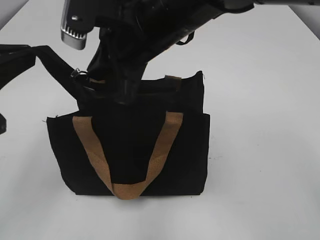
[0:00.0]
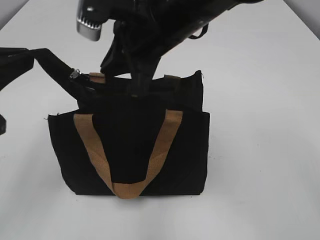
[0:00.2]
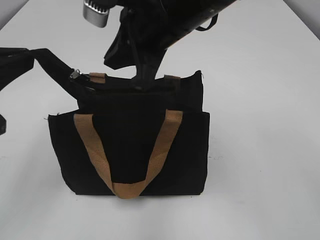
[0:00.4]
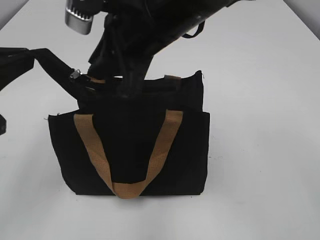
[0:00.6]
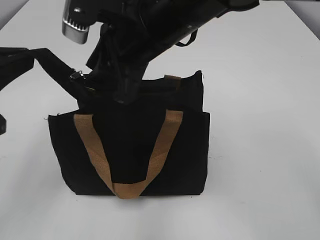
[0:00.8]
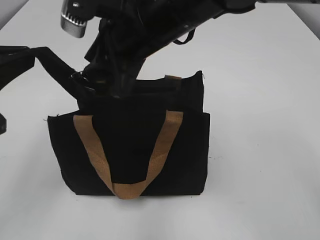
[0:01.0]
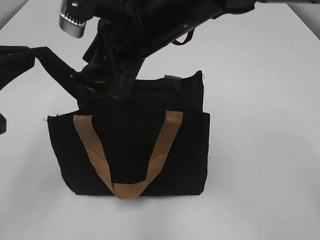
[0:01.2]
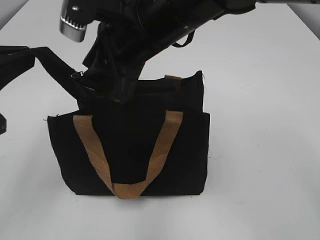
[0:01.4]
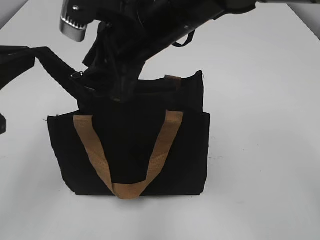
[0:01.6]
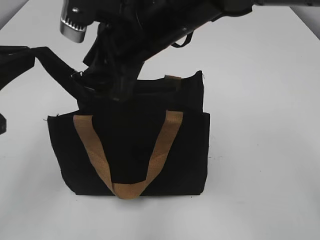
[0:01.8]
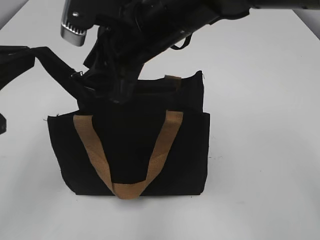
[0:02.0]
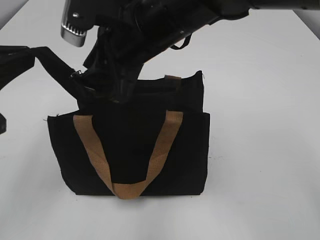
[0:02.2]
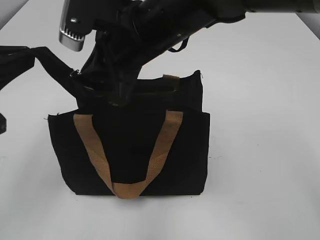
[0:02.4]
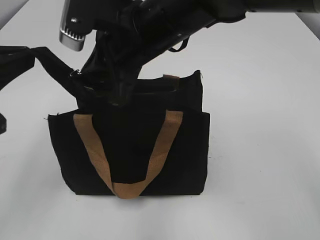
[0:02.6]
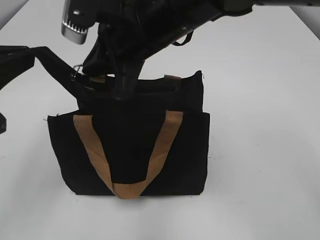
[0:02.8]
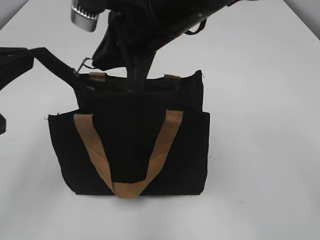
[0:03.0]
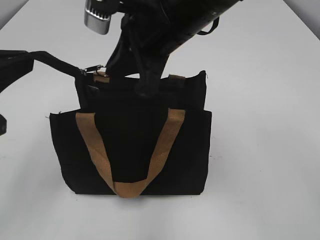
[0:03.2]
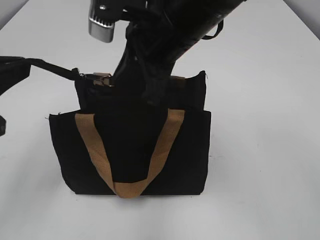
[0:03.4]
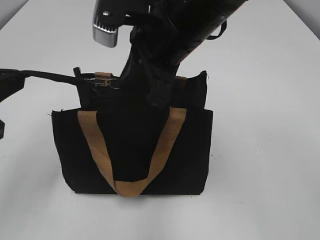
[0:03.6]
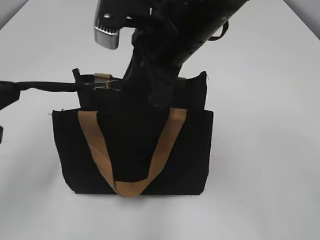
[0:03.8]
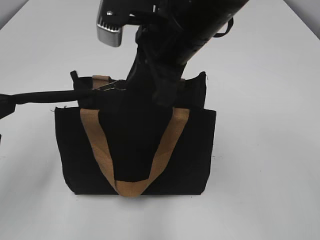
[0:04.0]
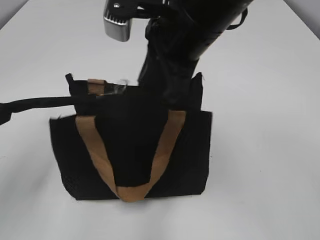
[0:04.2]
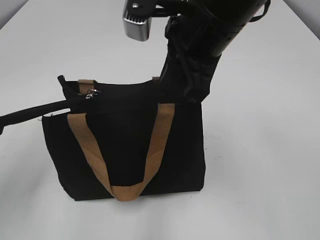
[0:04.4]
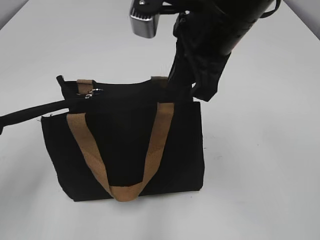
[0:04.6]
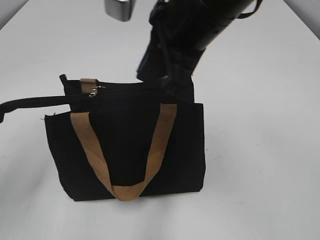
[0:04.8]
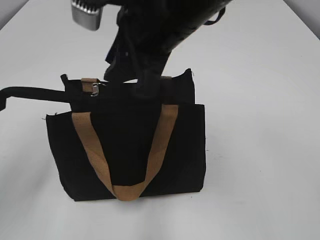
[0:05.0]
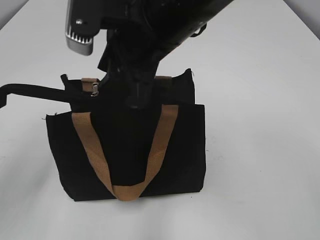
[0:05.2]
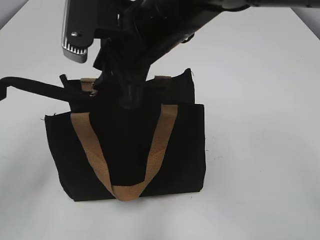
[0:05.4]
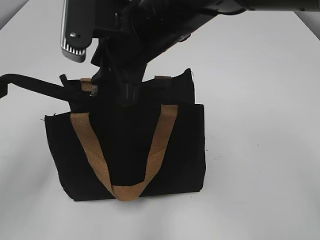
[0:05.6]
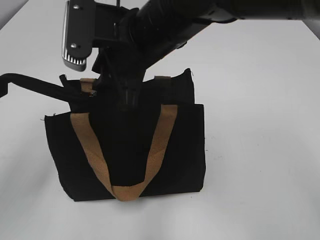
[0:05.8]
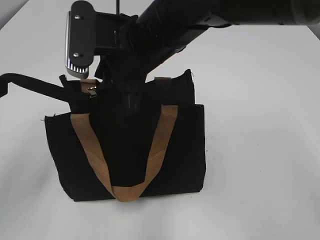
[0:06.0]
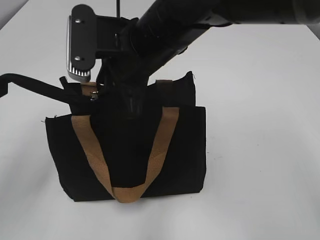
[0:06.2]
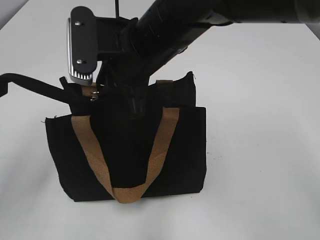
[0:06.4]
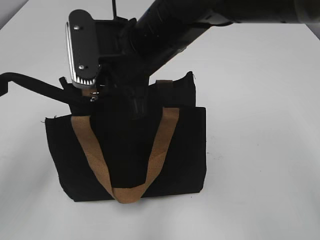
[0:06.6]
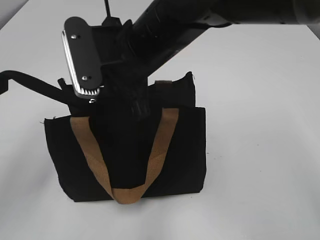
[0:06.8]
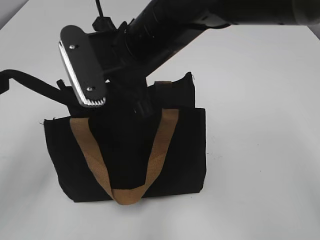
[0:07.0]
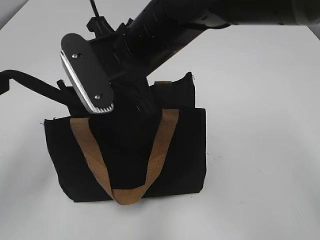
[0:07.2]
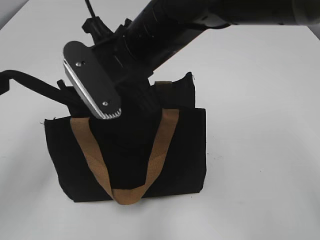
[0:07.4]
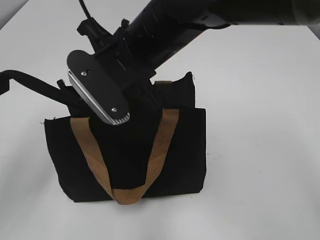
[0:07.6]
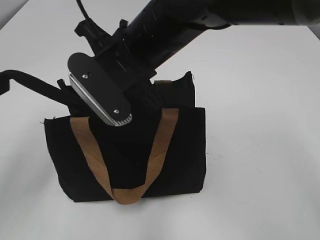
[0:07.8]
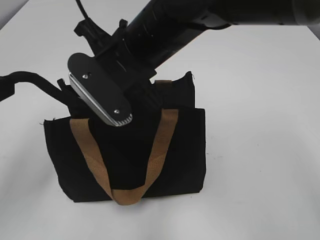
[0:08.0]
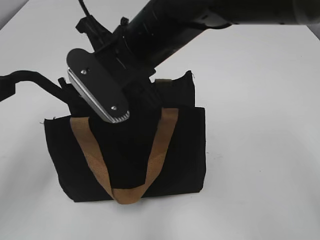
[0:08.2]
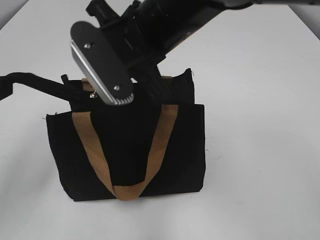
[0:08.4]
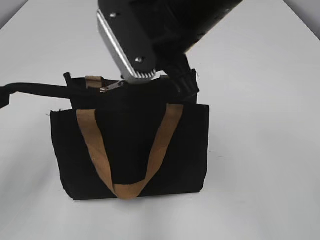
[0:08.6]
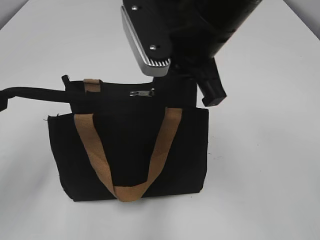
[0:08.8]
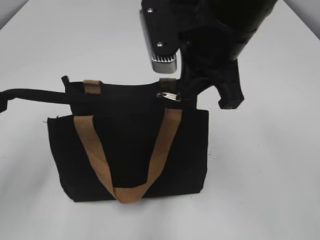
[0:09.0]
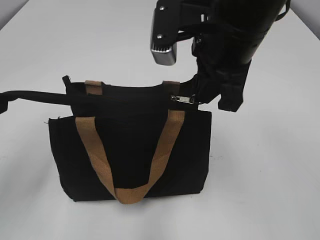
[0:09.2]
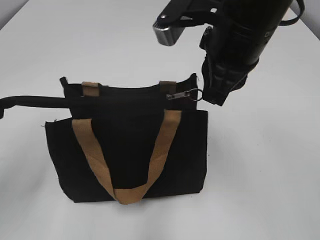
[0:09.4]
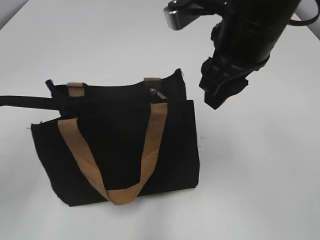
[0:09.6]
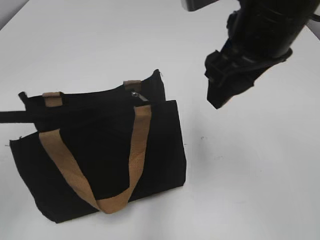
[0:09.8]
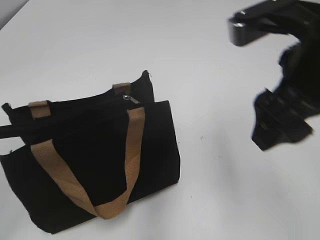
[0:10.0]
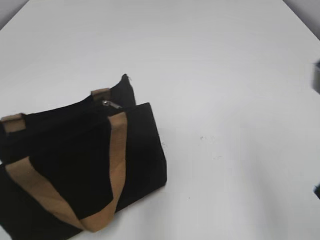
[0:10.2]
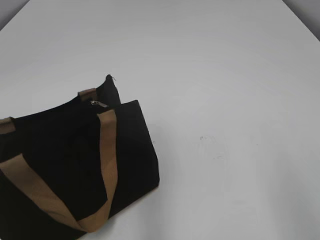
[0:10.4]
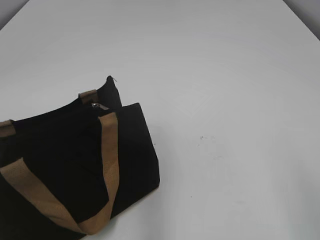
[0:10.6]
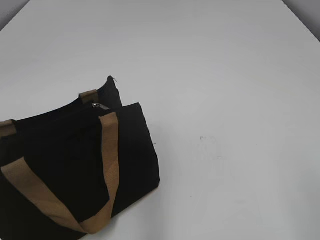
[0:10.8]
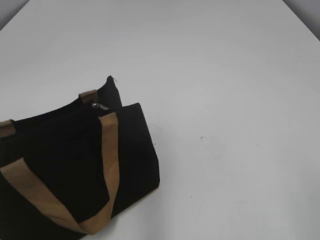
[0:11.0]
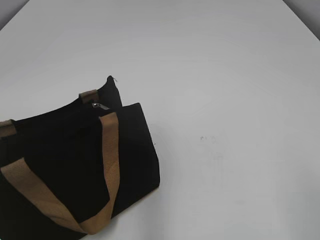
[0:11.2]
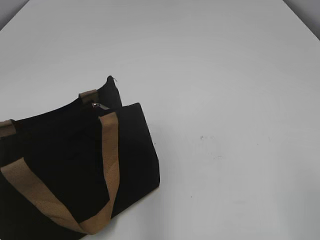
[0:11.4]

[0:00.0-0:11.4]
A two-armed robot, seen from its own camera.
Step, 0:00.0 to 0:09.4: Zip up the bag with your right hand.
Step, 0:09.6 to 0:10.6: Grab the zipper with your left hand.
0:00.0 to 0:01.4: The right gripper opens up.
0:01.4 to 0:02.8: The right gripper closes its fingers.
0:02.8 to 0:04.2: The right gripper changes place by roughly 5 cm.
0:04.2 to 0:05.6: The right gripper heads to the left, covering some 5 cm, and opens its fingers.
0:07.2 to 0:08.6: The right gripper moves approximately 5 cm, and closes its fingers.
0:08.6 to 0:10.0: The left gripper is displaced upward by roughly 5 cm, and opens; the right gripper is displaced to the right and backward by approximately 15 cm, and opens up.
0:10.0 to 0:11.4: The left gripper moves backward and to the left, roughly 15 cm. The right gripper travels backward and to the right by about 25 cm.

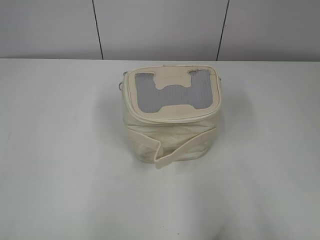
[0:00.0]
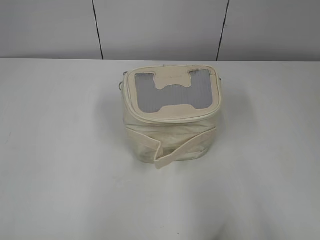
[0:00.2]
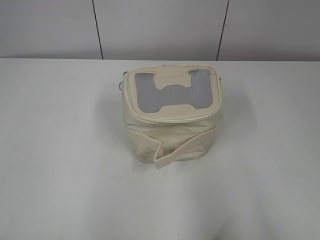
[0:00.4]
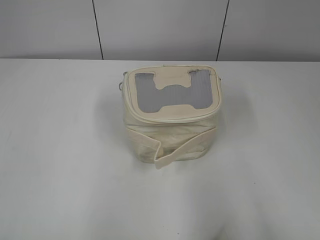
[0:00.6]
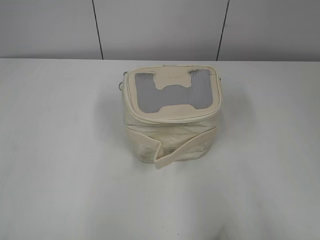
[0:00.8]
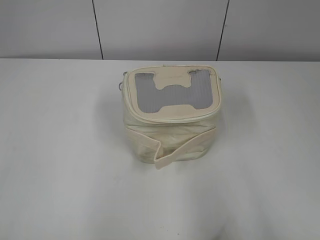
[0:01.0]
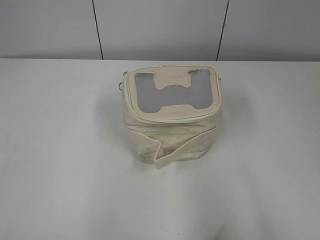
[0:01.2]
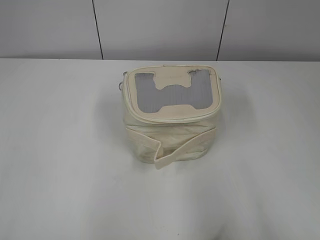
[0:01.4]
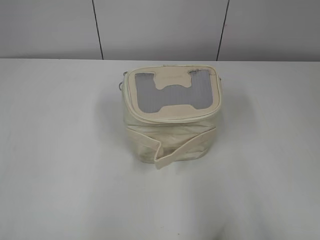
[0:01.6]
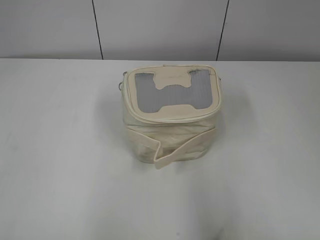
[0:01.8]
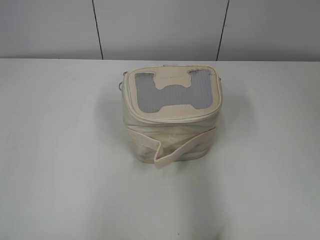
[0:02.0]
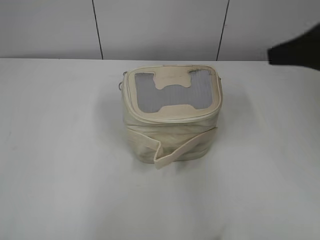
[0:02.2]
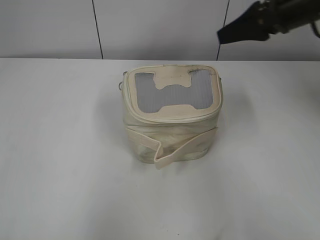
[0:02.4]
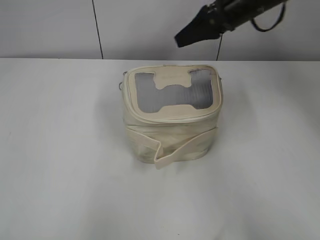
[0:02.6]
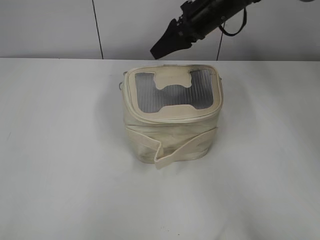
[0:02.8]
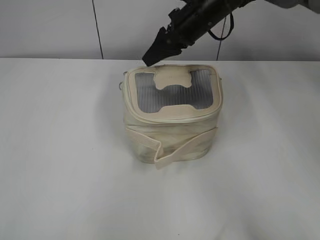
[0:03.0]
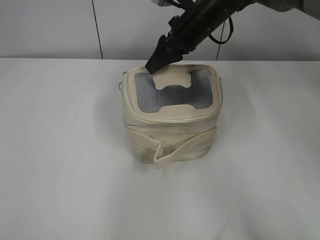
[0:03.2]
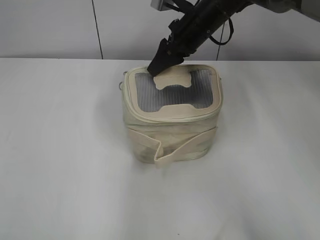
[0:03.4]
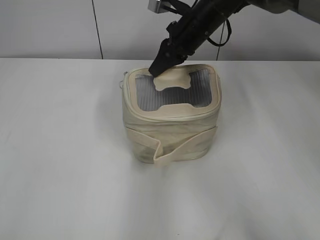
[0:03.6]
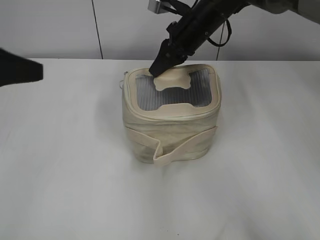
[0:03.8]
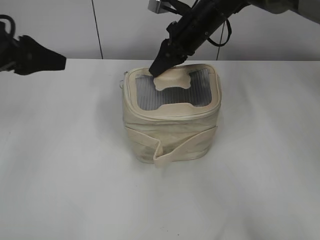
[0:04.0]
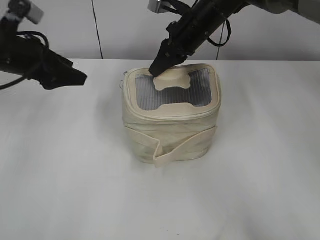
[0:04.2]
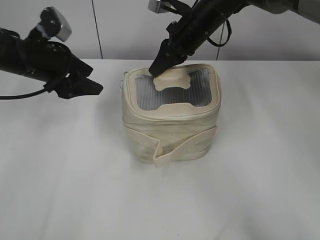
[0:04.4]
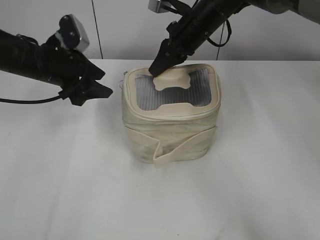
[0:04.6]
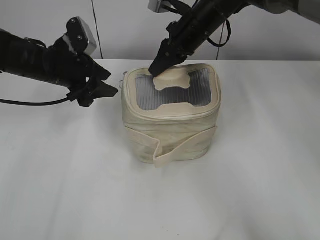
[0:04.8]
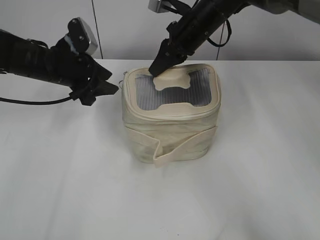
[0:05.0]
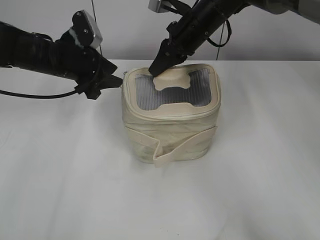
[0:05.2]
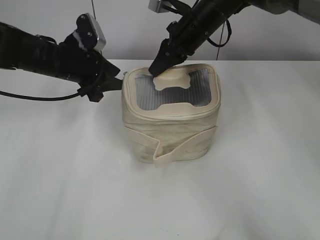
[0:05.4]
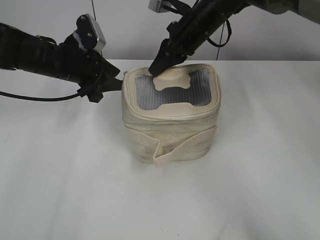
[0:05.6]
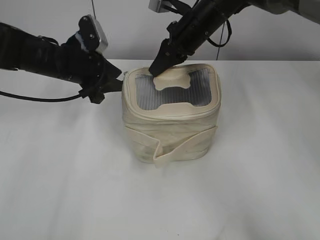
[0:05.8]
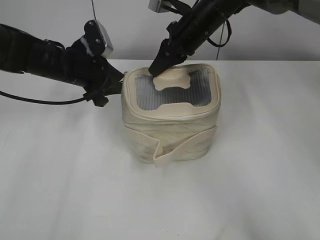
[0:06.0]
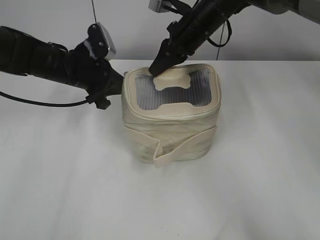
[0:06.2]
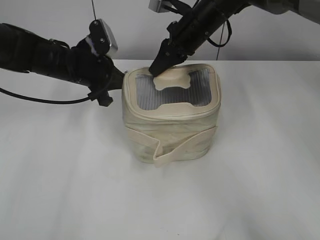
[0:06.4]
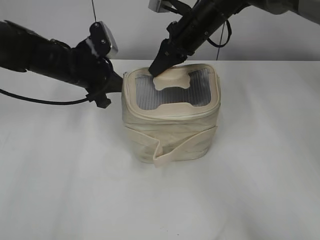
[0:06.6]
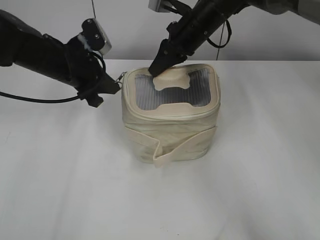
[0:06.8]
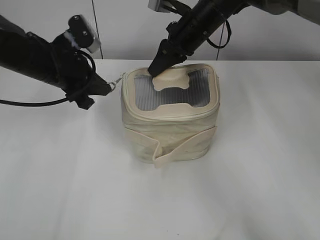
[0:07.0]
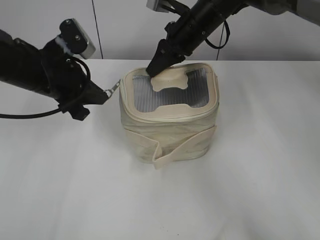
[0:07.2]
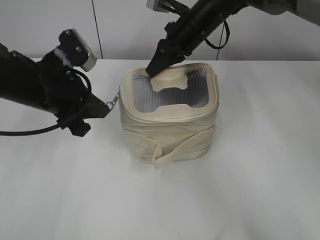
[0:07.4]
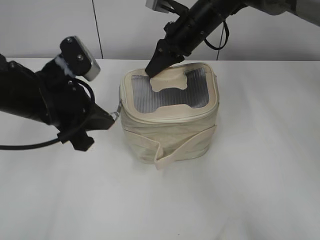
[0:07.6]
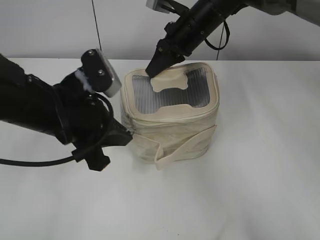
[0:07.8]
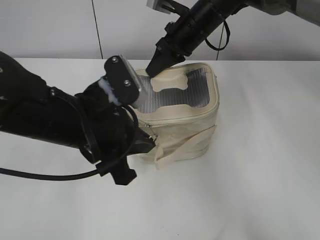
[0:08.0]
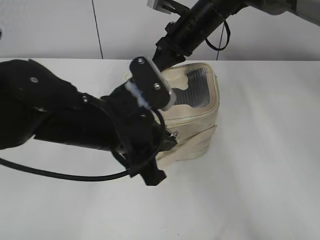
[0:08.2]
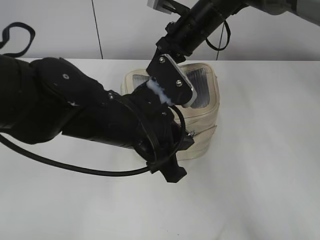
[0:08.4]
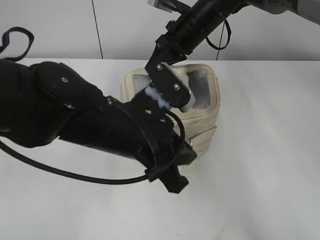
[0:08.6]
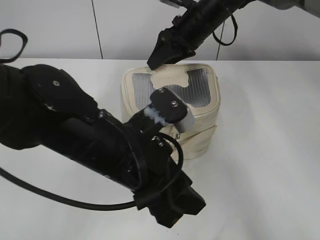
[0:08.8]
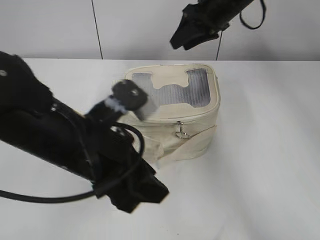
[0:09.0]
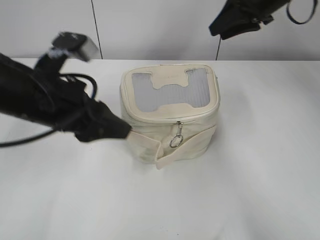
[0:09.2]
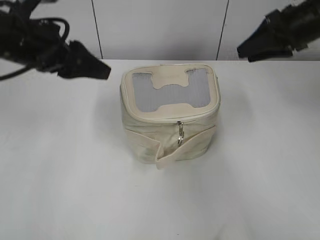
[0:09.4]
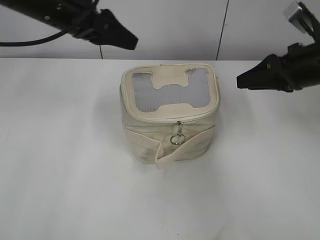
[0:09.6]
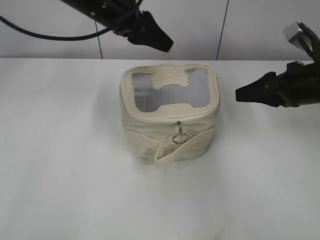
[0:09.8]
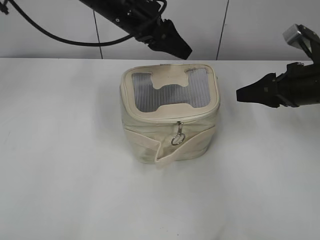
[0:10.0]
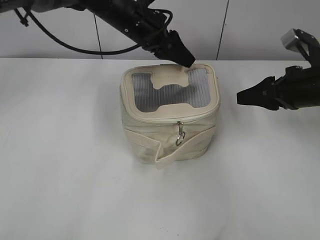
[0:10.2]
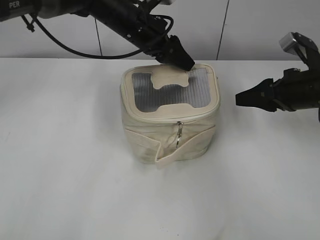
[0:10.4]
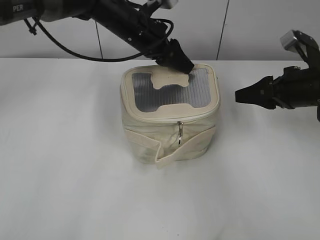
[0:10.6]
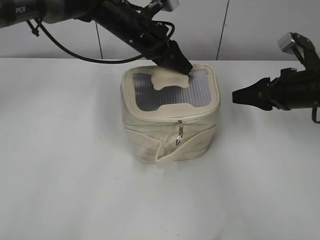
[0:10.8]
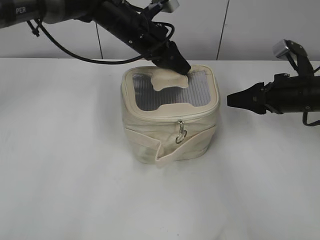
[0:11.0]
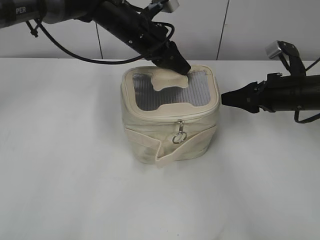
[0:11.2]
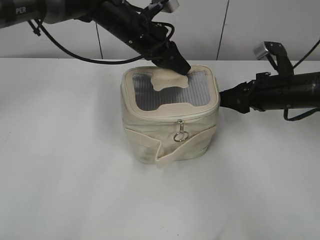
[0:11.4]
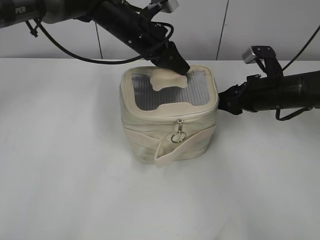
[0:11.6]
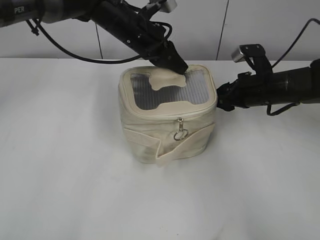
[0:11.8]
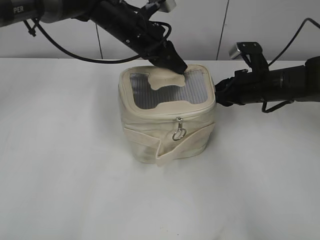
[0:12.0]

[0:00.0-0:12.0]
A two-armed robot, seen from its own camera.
Step, 0:00.0 to 0:08.4: Zip up the bag with your left hand.
0:01.6 to 0:03.0: The right gripper travels forward and to the left by approximately 50 cm.
0:03.0 to 0:04.4: The right gripper closes its fingers, while the left gripper heads forward, covering approximately 35 cm, and opens up.
0:04.4 to 0:06.0: The left gripper travels to the right by approximately 5 cm, and closes.
0:06.0 to 0:07.6: The left gripper travels backward by some 10 cm, and closes up.
0:07.6 to 0:09.0: The left gripper heads backward and to the right, covering about 15 cm, and opens; the right gripper shifts by roughly 5 cm, and opens.
0:09.0 to 0:10.4: The left gripper goes some 25 cm forward, while the right gripper travels to the right, backward and downward by approximately 25 cm.
0:10.4 to 0:12.0: The right gripper heads forward, to the left and downward, covering about 10 cm. The left gripper closes.
